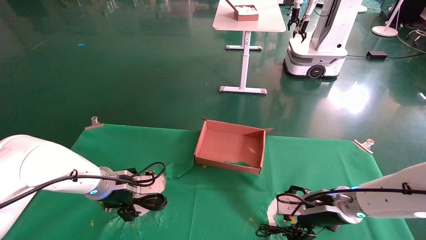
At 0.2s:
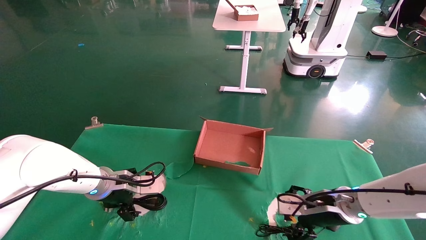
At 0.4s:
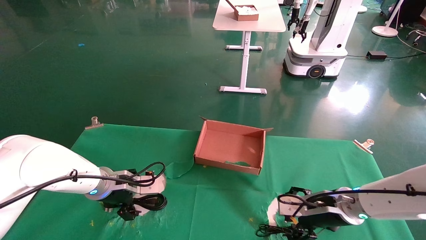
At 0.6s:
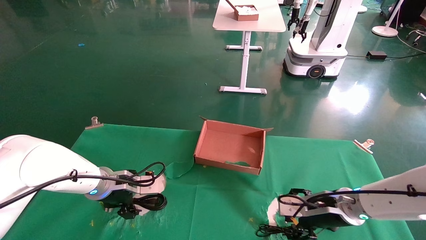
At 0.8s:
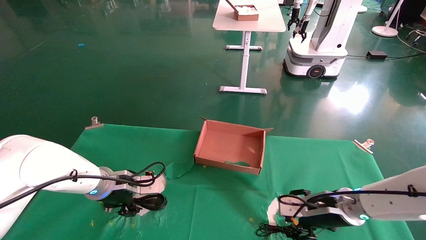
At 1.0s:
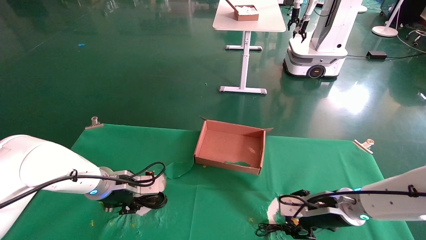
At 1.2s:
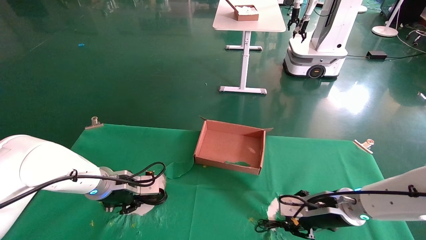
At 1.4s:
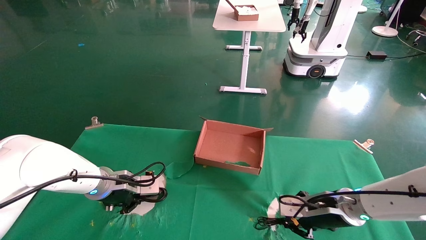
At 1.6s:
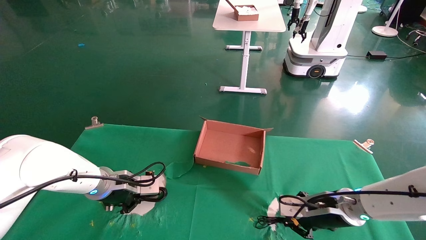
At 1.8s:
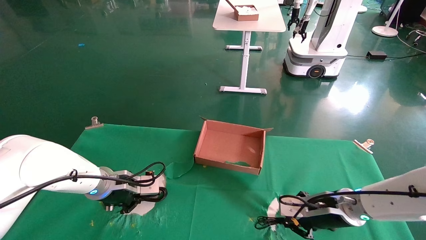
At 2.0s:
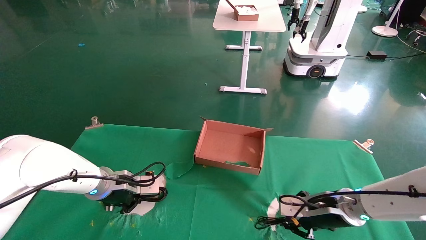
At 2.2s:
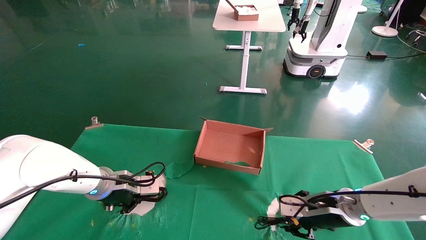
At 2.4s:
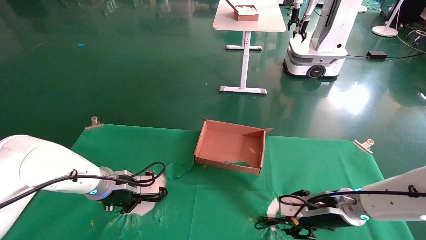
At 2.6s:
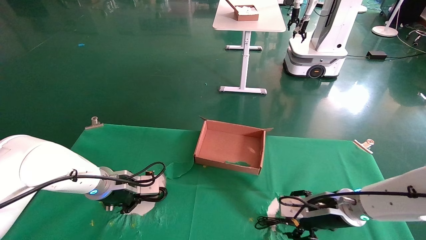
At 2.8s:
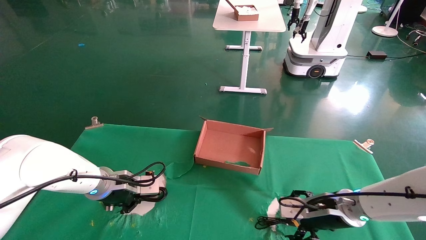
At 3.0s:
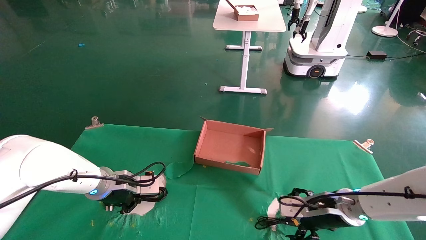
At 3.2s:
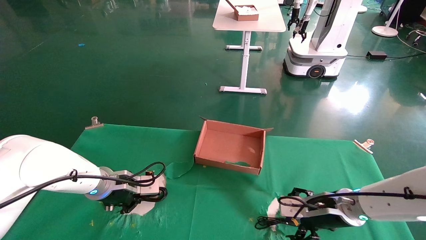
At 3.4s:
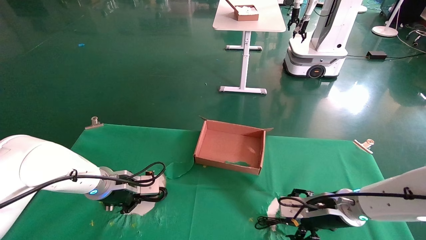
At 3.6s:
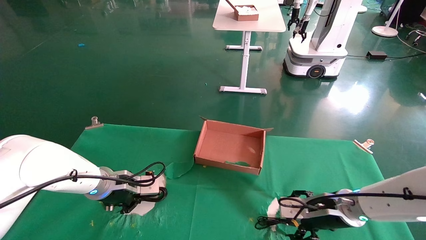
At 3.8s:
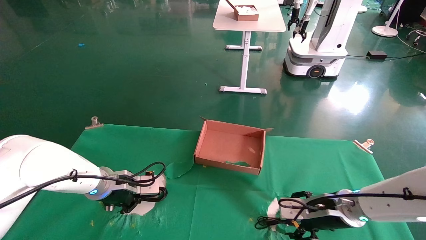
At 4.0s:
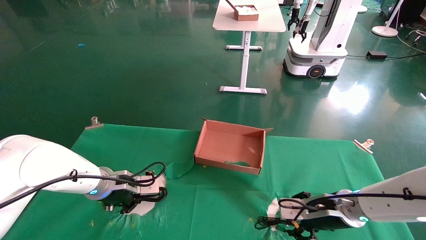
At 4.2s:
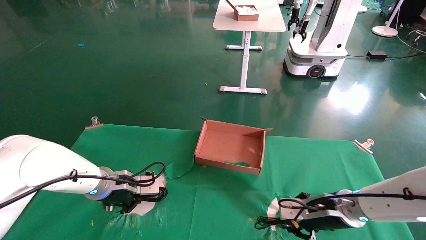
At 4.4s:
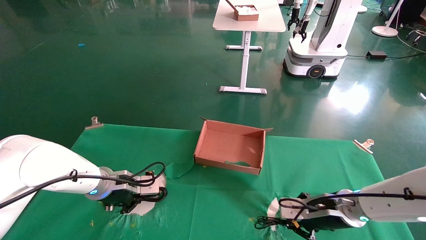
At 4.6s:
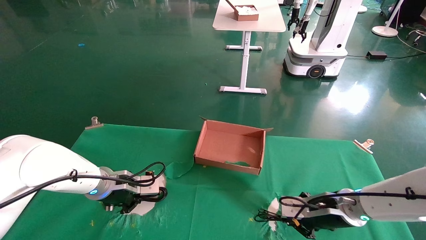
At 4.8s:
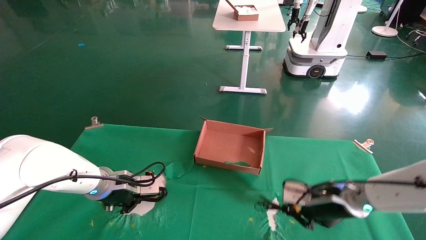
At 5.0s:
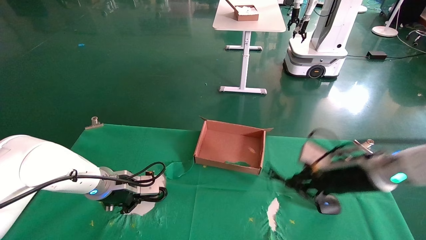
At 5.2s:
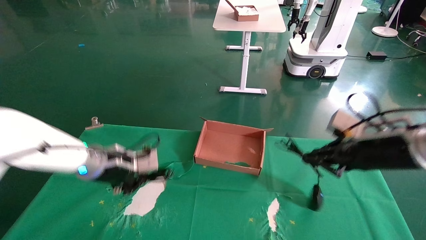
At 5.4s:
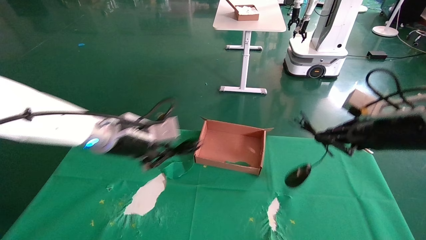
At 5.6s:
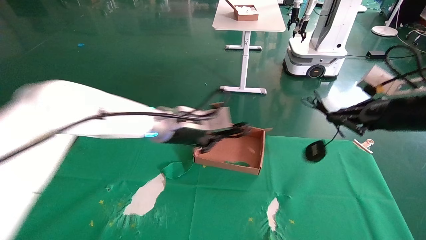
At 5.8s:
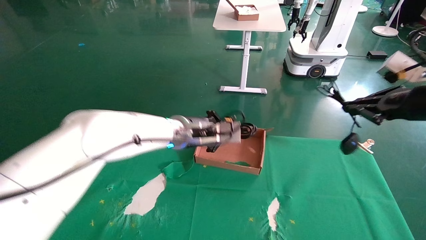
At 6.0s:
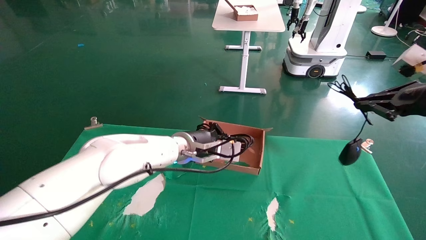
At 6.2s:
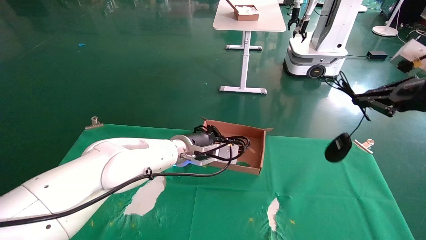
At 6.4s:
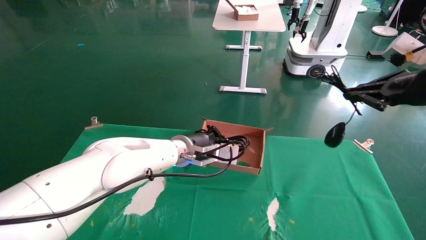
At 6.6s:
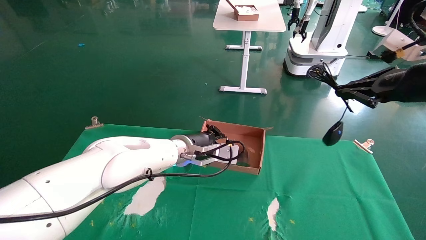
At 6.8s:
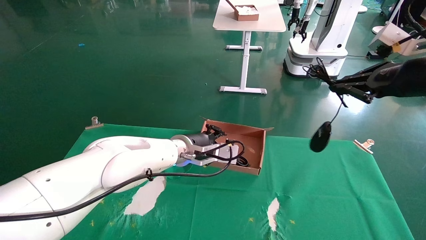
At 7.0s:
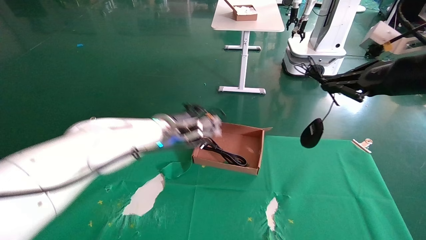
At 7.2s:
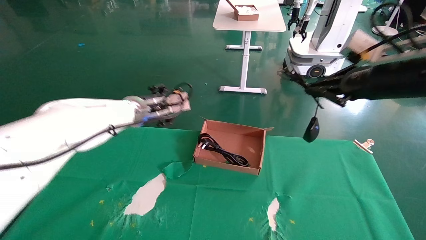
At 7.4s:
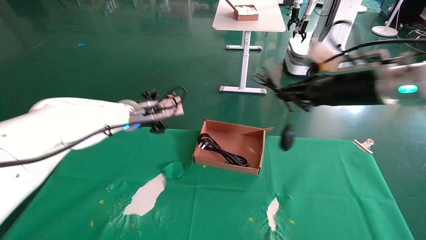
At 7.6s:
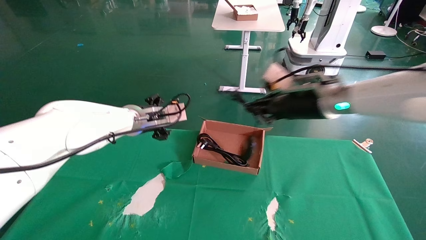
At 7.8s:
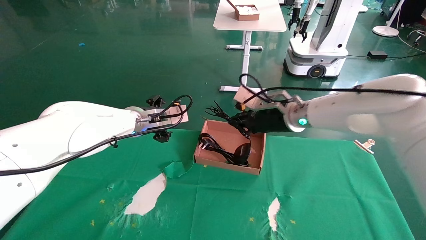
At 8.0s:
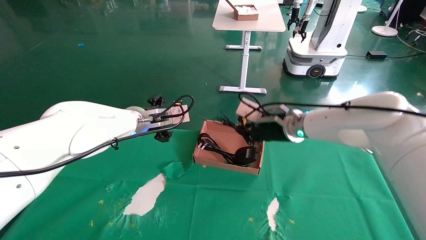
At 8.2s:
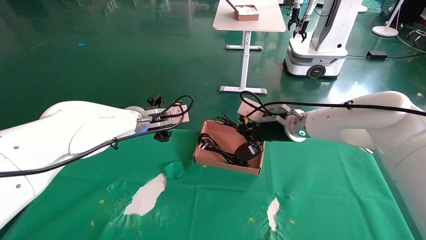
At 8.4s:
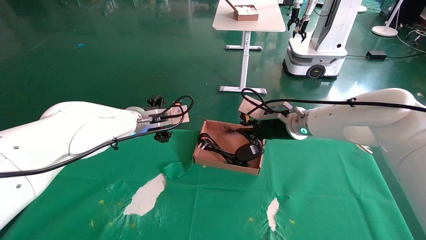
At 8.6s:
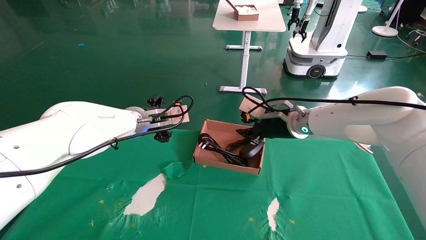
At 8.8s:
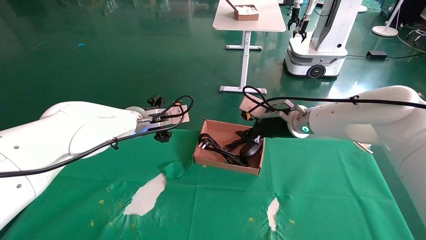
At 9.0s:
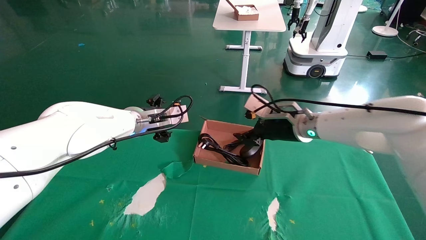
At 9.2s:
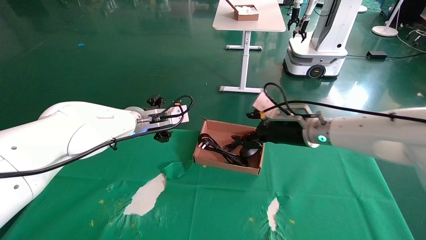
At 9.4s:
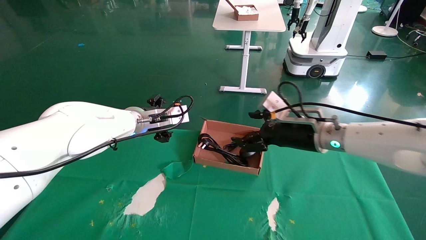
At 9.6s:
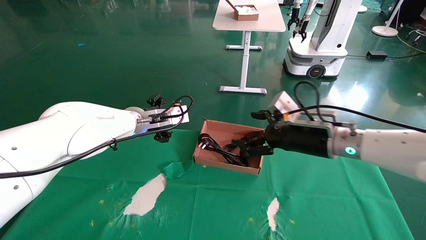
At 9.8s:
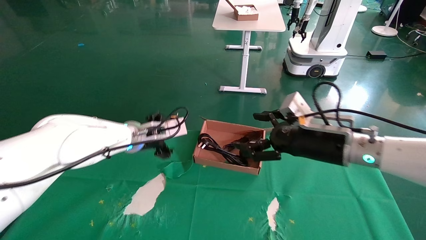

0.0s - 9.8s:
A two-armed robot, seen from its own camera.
Step, 0.0s - 5.2s: Grab and lift both the mouse and power cord from the accessory packaging area at the same time.
Step, 5.4s - 9.6s: Place the mouse and power cord into the box.
0.0s - 1.4s: The right gripper closes; the left gripper closes up.
1.4s - 2.8s: The right gripper opens.
2.8s - 4.2s: Both grippers stay put.
4.2s - 5.6s: The right gripper goes approximately 25 cm upward and to the right, and closes up, while the left gripper goes some 20 cm to the right and upward.
5.6s - 7.0s: The left gripper travels forward by roughly 5 cm, and opens up. Meanwhile the right gripper heads upward, covering approximately 5 cm.
7.0s - 8.4s: The left gripper is displaced to the left by roughly 5 cm, and opens. The right gripper shifts approximately 25 cm to the left, forward and downward.
8.4s - 9.8s: The right gripper travels backward and to the right by approximately 10 cm, and opens.

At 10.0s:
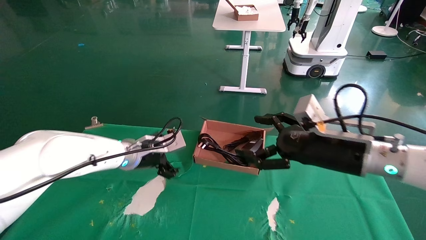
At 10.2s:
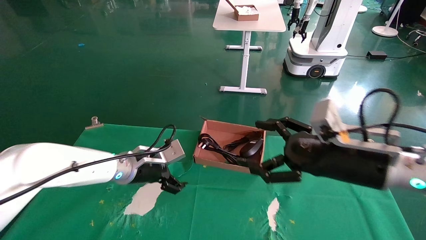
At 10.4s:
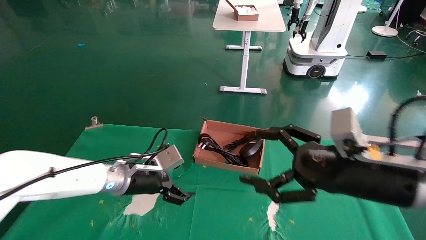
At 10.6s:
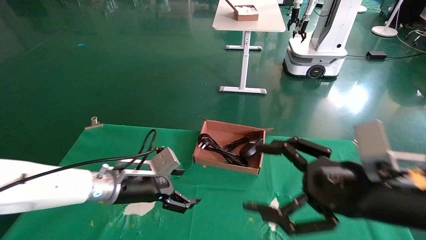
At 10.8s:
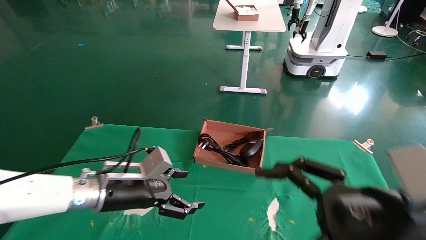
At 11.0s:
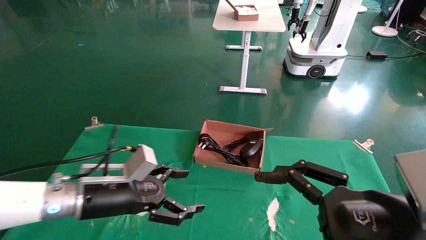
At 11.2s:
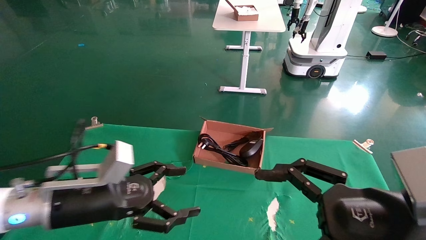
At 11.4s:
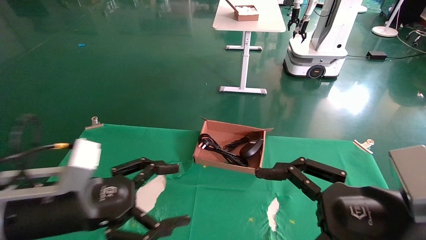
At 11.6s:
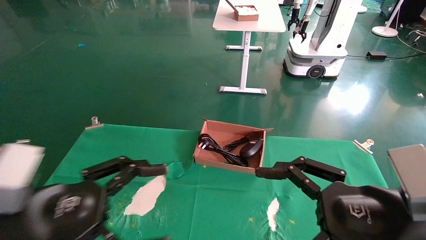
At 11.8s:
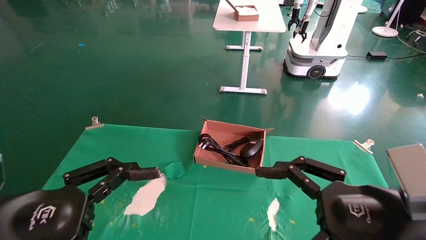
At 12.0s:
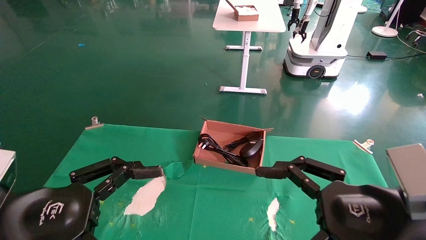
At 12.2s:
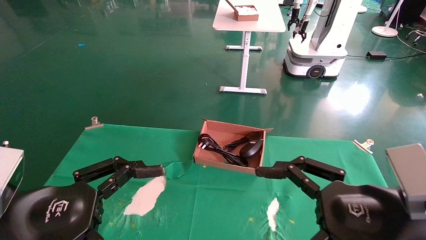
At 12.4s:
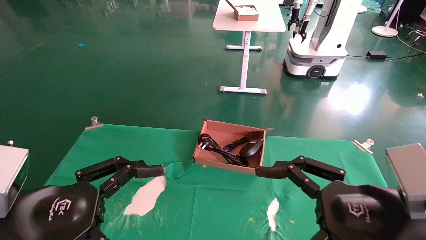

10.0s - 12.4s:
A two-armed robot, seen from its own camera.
10.0s - 11.2s: Both grippers move backward, approximately 15 cm.
11.2s - 12.4s: The left gripper is displaced backward by some 10 cm.
